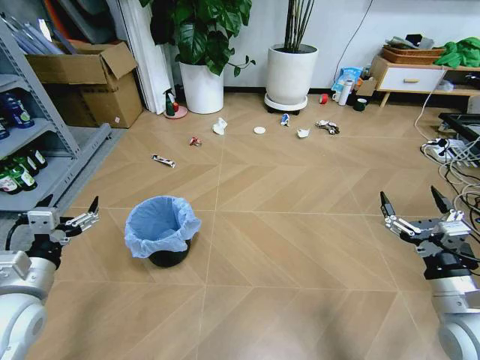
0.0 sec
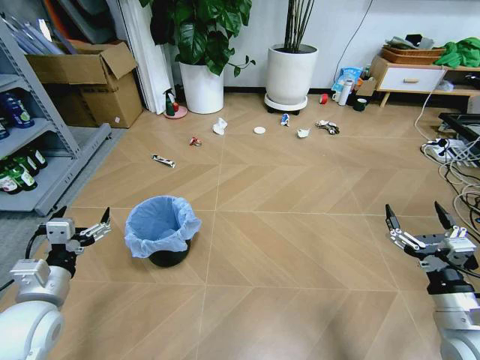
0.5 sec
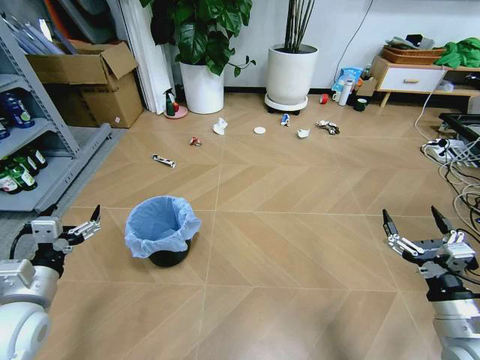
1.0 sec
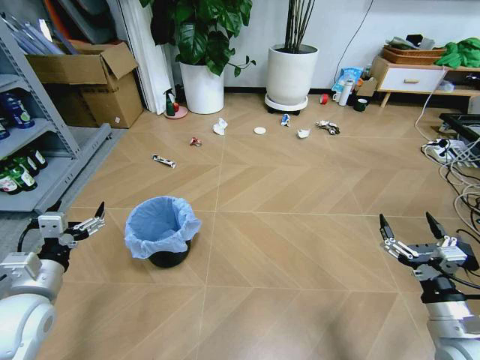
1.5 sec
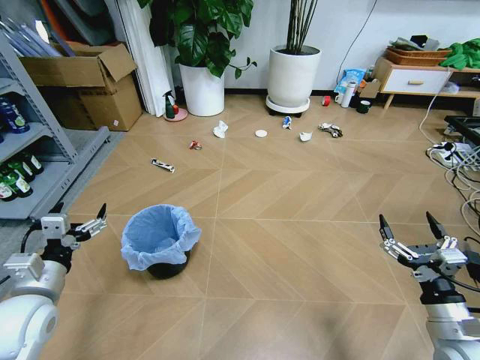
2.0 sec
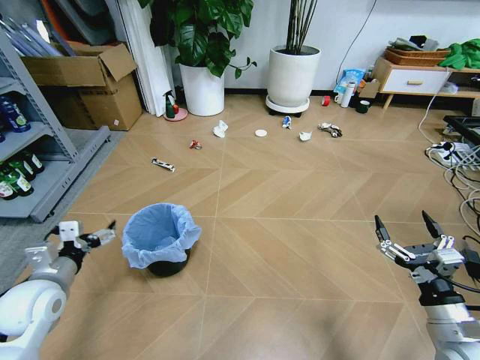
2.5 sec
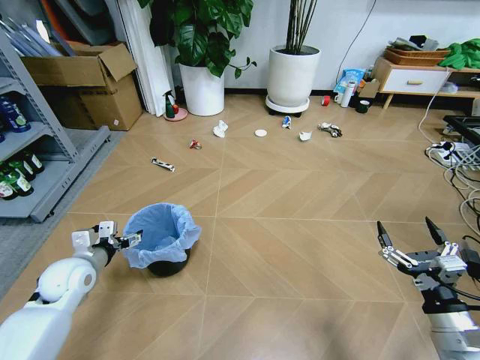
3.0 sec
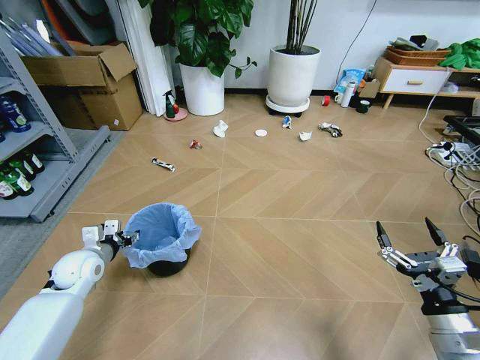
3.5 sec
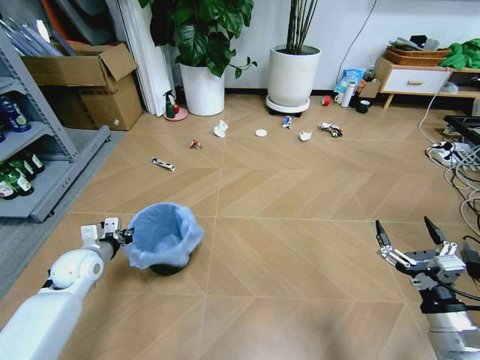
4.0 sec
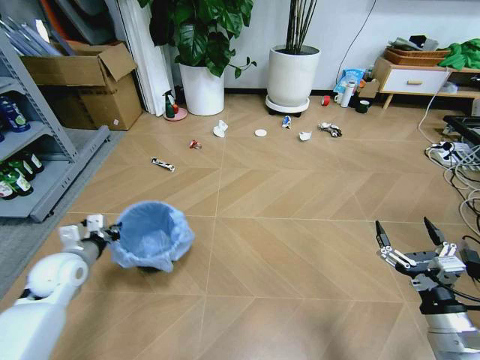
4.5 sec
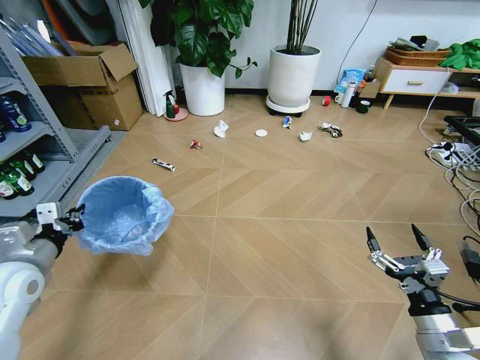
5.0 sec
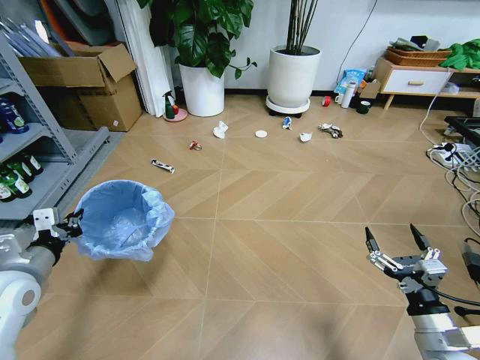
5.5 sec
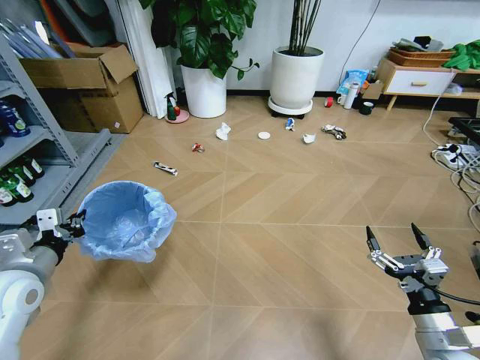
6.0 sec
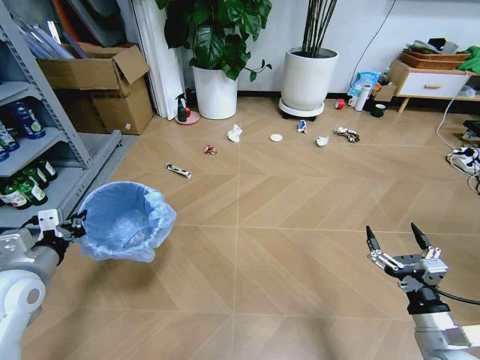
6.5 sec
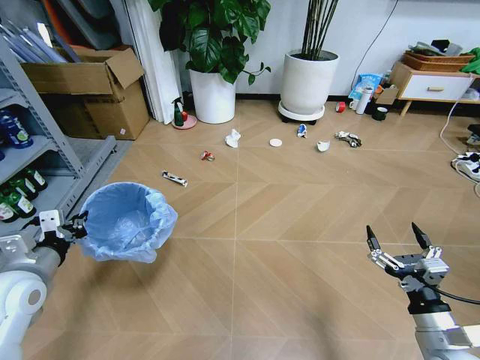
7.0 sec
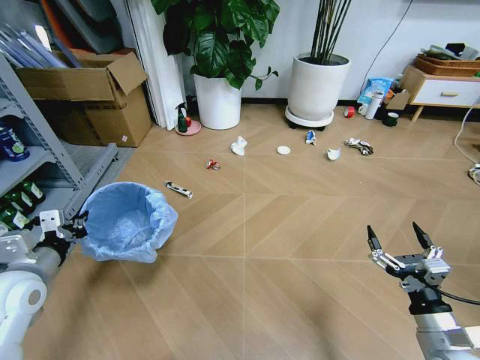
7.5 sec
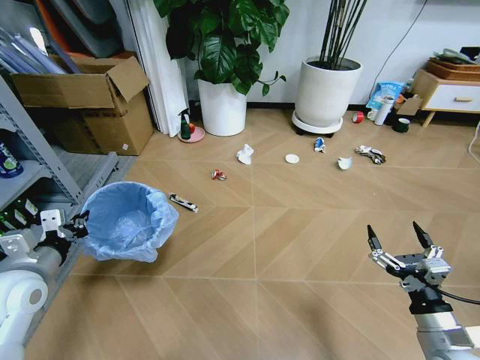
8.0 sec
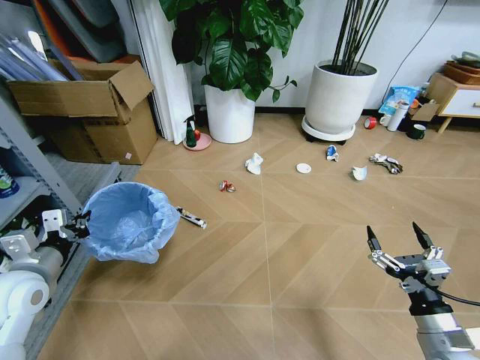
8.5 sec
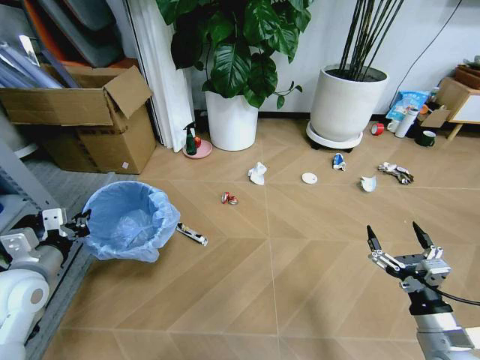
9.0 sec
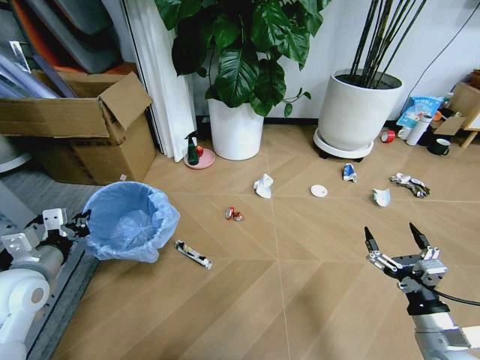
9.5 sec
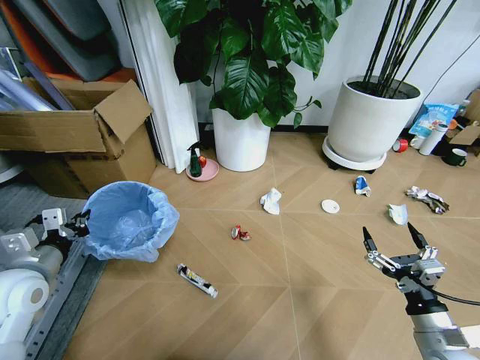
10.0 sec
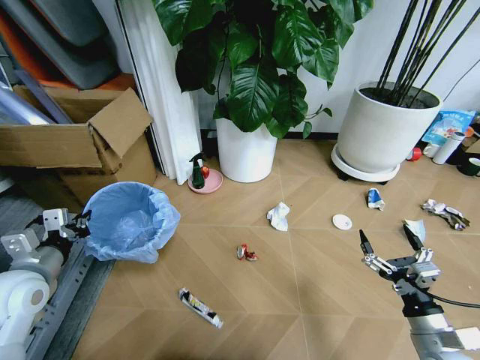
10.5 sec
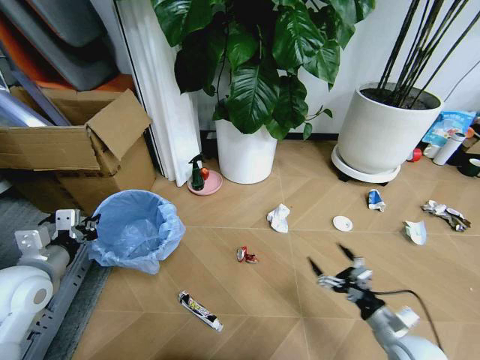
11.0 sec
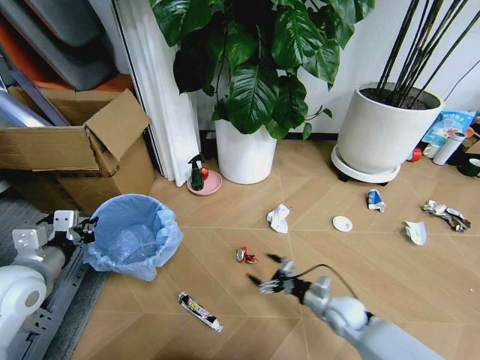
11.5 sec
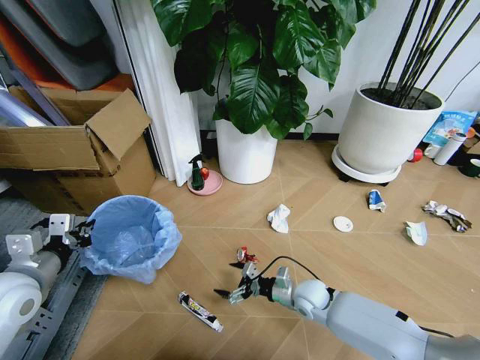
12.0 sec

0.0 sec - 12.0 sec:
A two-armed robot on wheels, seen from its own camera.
Task of the whole recording: Pick up the trash bin and place the garbage on the floor into it.
2.0 sec - 4.0 sec: The left gripper travels forward and downward by approximately 15 cm, and closes its fingers.
4.0 sec - 6.0 sec: The left gripper shifts about 15 cm upward and backward.
10.0 sec - 12.0 sec: The right gripper shifts about 30 cm forward, to the left and downward.

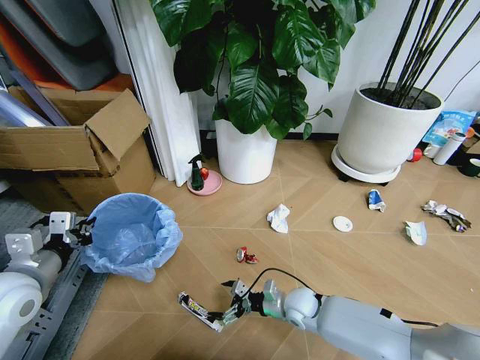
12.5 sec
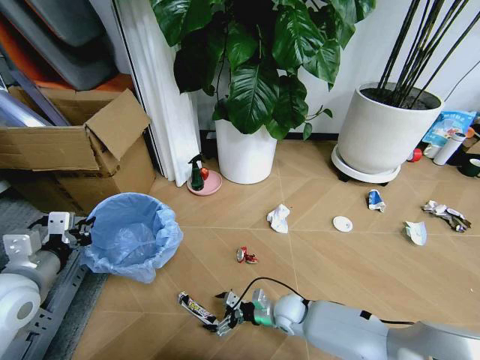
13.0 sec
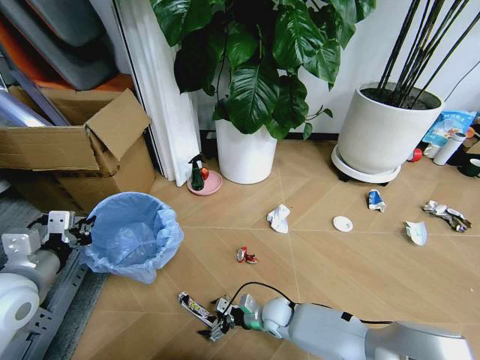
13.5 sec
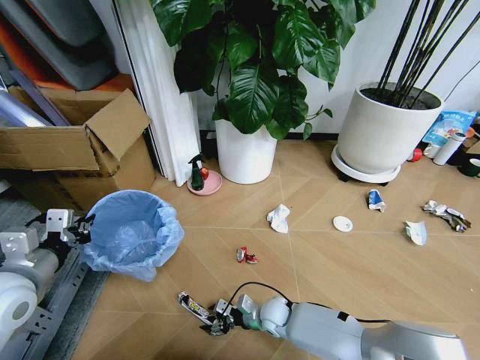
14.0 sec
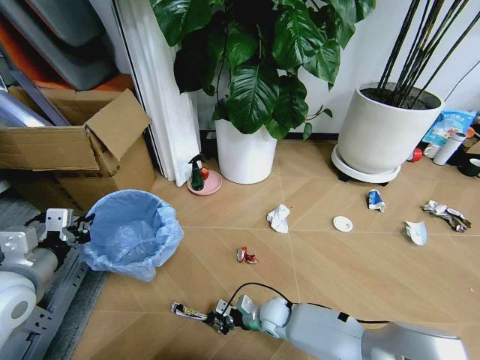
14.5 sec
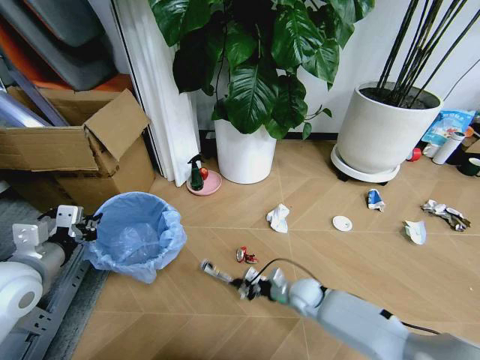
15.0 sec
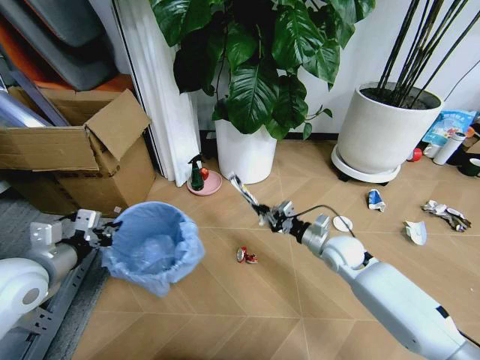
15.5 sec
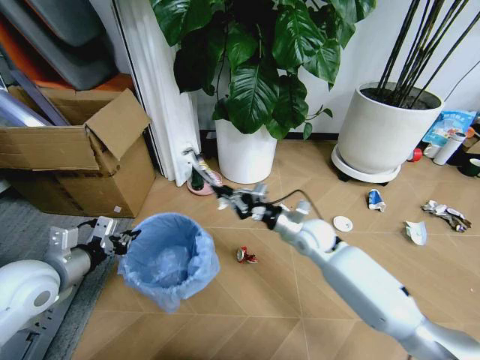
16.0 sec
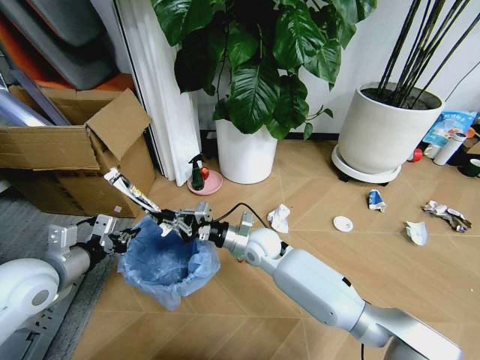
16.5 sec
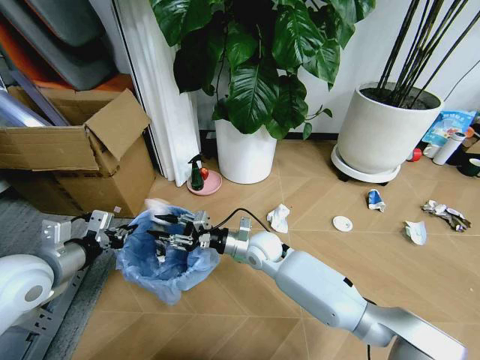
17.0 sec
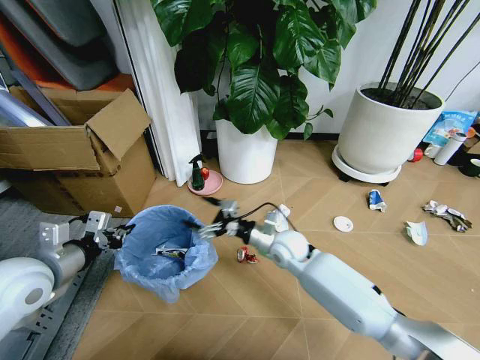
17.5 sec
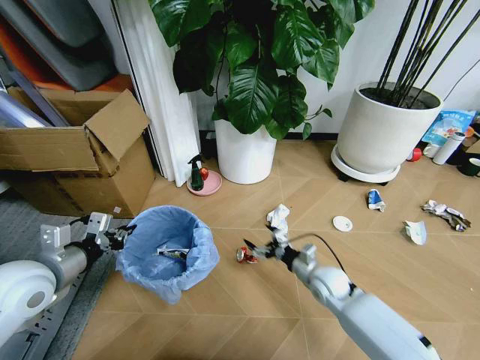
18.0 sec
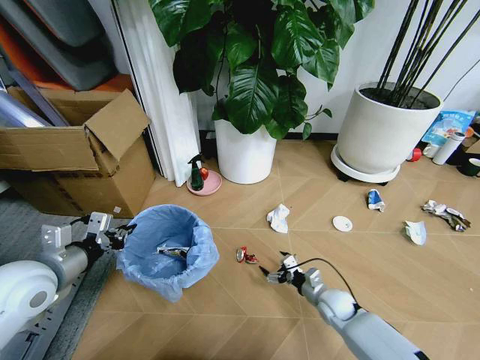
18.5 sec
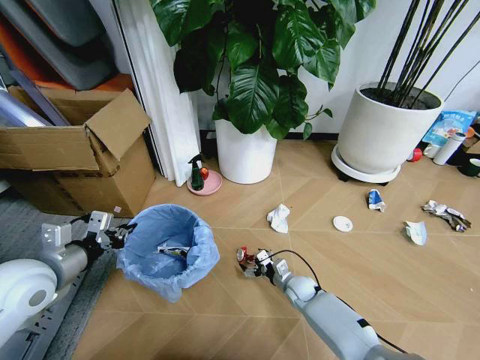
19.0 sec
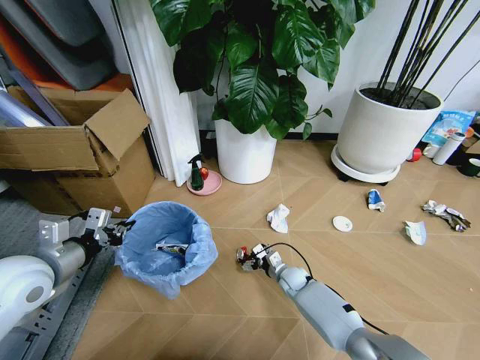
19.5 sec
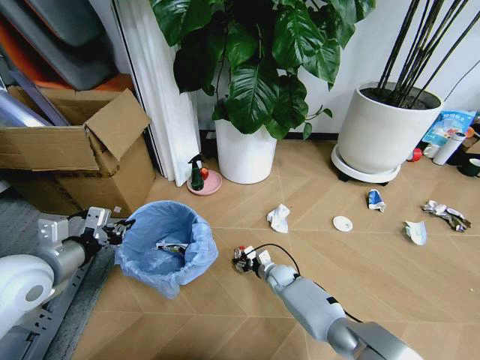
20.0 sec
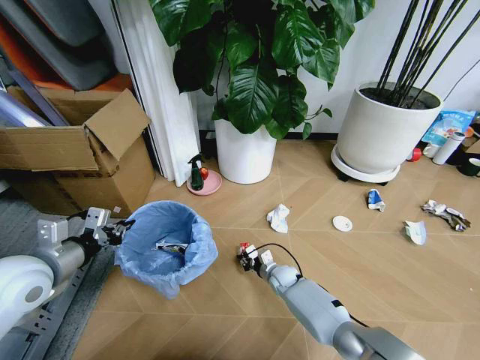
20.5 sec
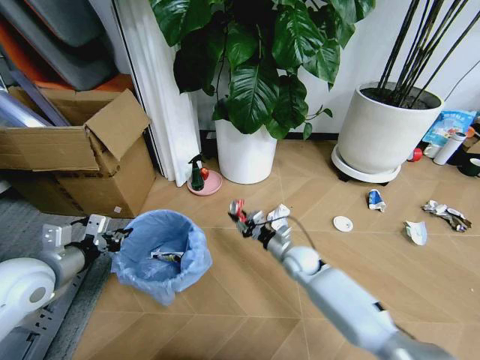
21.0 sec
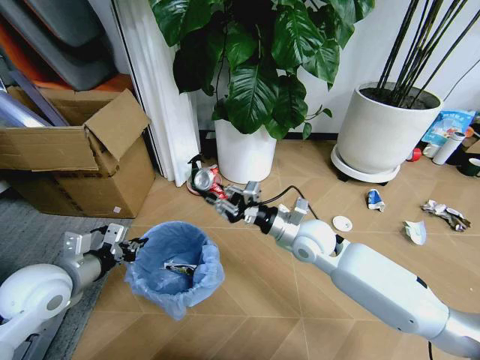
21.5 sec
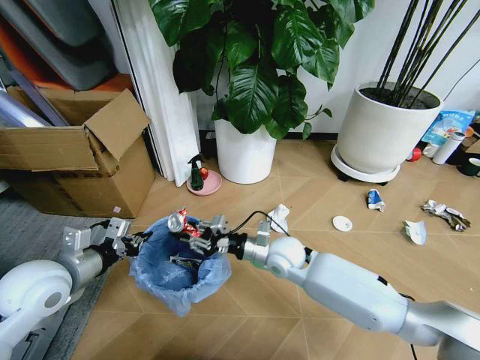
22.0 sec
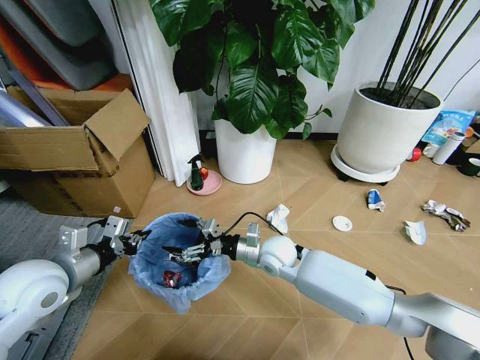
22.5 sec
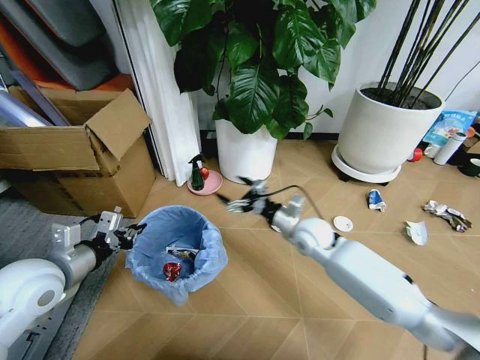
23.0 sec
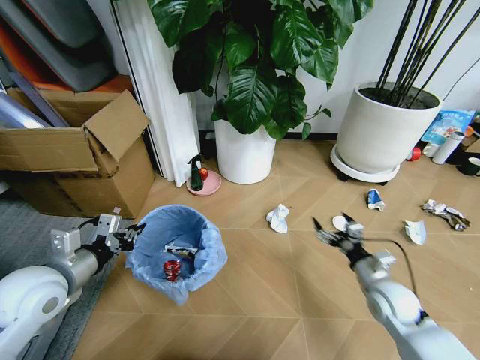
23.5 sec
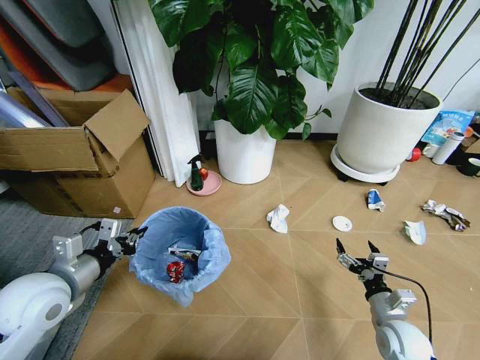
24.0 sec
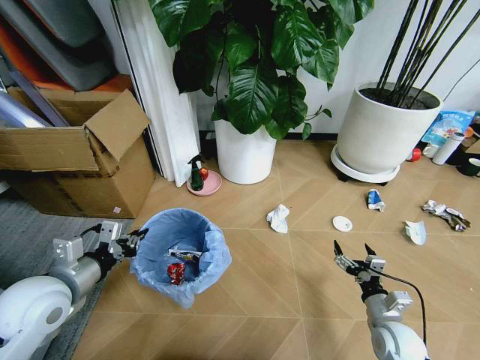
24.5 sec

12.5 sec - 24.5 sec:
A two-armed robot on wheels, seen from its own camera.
Task of the whole recording: Pick up the trash bin and place the garbage on the floor into it.
12.5 sec - 14.5 sec: The right gripper travels to the left and downward by about 10 cm, and closes.
14.5 sec - 16.5 sec: The right gripper shifts some 25 cm upward and forward.
16.5 sec - 18.5 sec: The right gripper heads to the right, downward and backward, covering some 30 cm, and opens.
18.5 sec - 20.5 sec: The right gripper goes roughly 20 cm to the left, forward and downward, and closes.
20.5 sec - 22.5 sec: The right gripper travels upward by roughly 20 cm, and opens up.
22.5 sec - 24.5 sec: The right gripper goes some 30 cm to the right and backward.

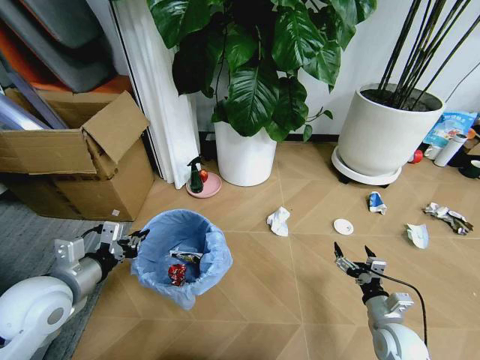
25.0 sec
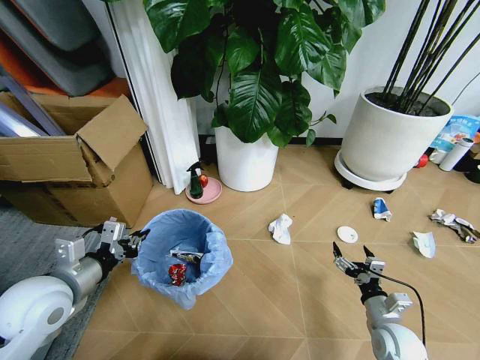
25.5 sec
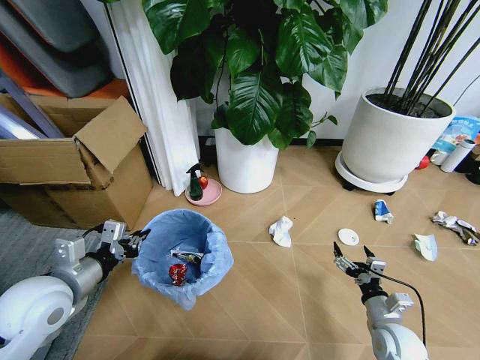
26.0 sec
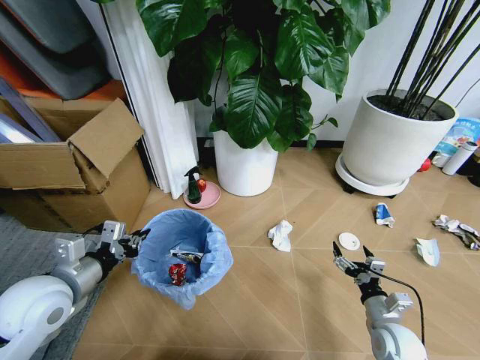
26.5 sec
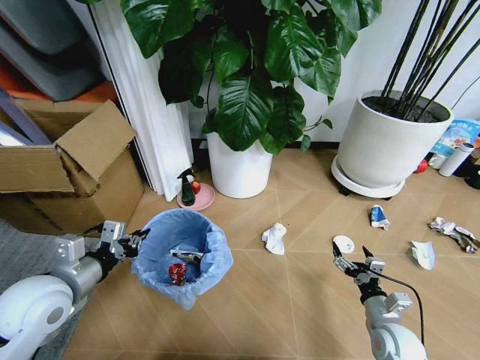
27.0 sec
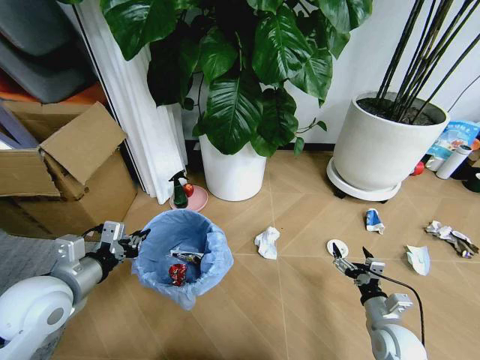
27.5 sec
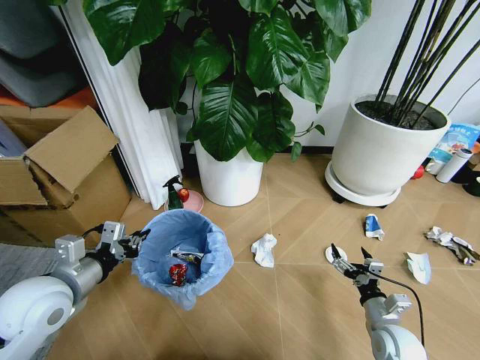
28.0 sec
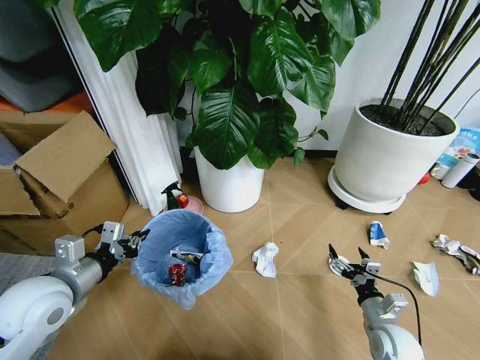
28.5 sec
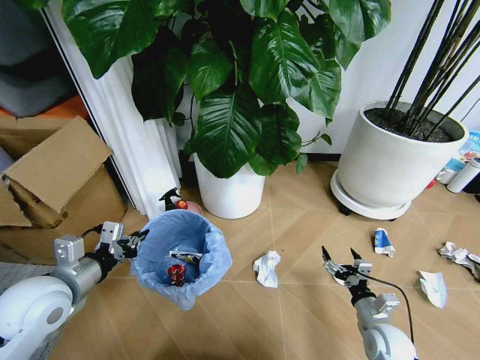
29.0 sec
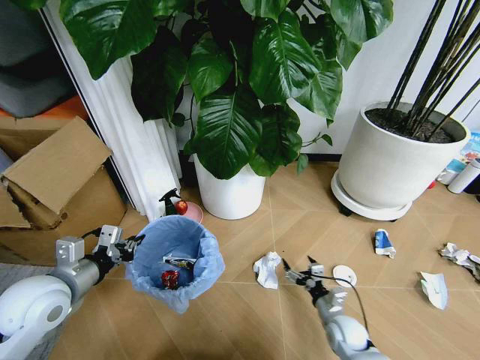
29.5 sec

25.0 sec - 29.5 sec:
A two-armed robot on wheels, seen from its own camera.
Task of the whole recording: Pick up the trash bin and place the garbage on the floor into it.
27.0 sec - 29.5 sec: The right gripper moves downward and to the left, roughly 10 cm.
